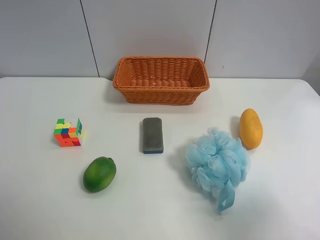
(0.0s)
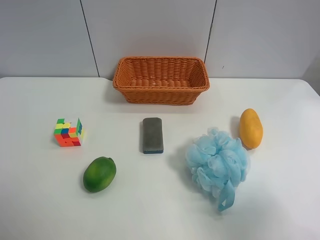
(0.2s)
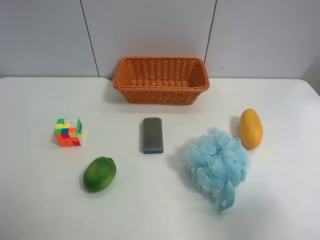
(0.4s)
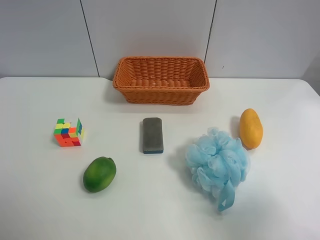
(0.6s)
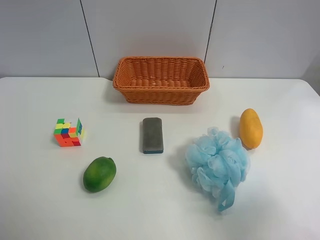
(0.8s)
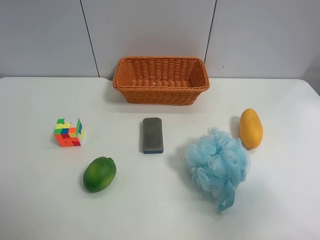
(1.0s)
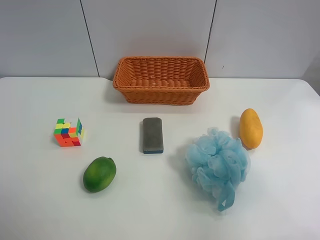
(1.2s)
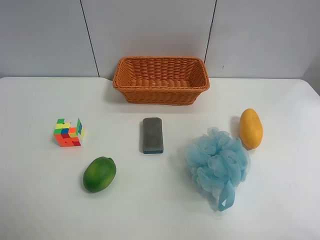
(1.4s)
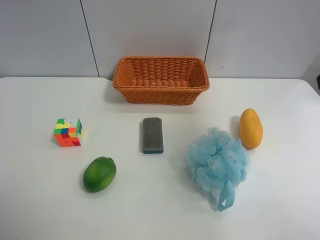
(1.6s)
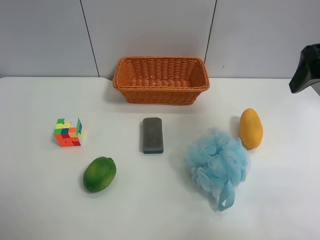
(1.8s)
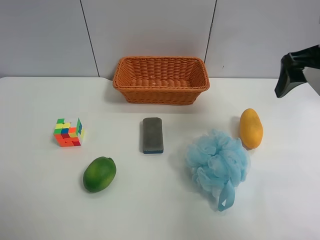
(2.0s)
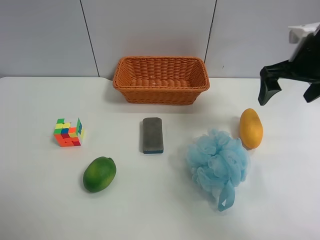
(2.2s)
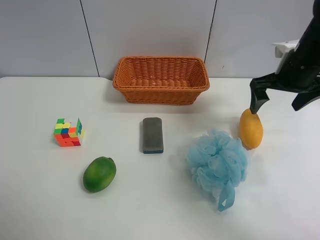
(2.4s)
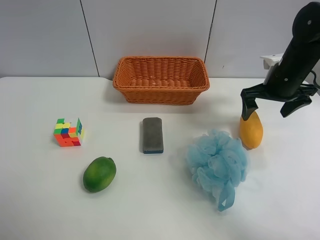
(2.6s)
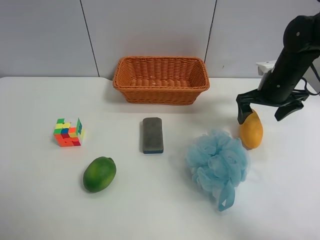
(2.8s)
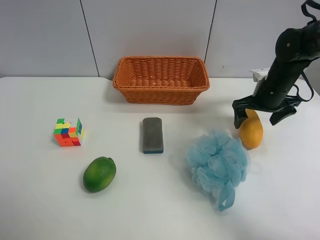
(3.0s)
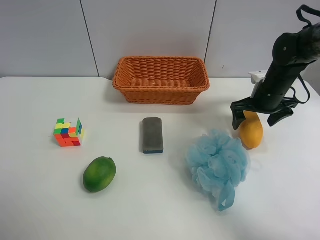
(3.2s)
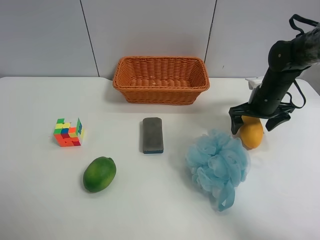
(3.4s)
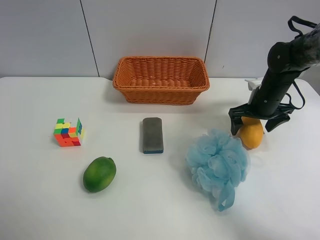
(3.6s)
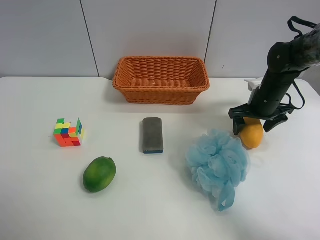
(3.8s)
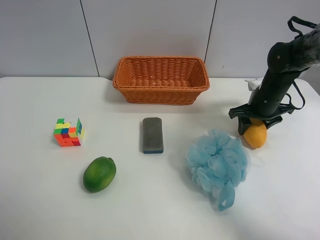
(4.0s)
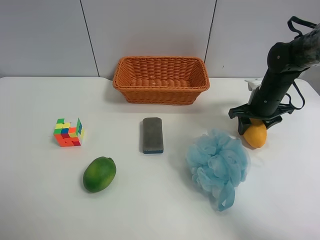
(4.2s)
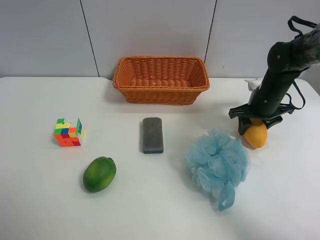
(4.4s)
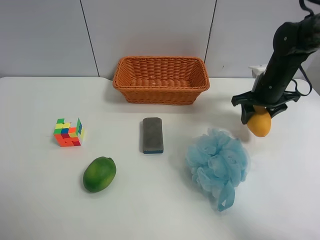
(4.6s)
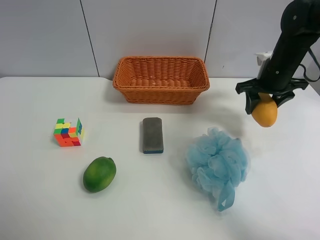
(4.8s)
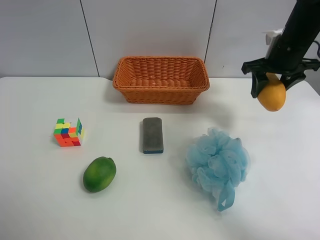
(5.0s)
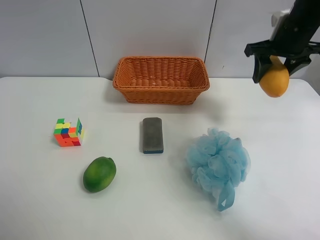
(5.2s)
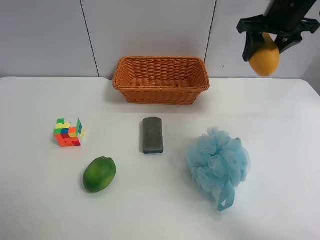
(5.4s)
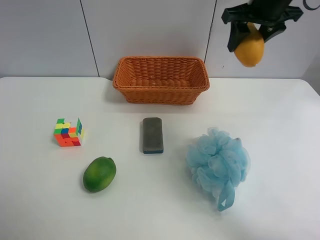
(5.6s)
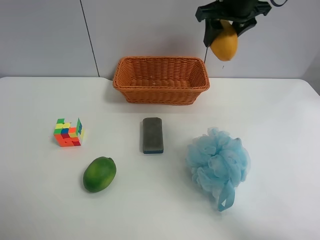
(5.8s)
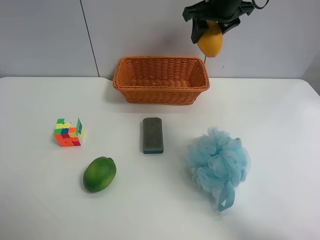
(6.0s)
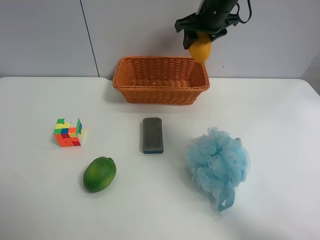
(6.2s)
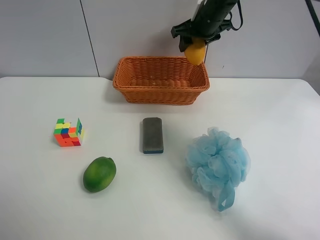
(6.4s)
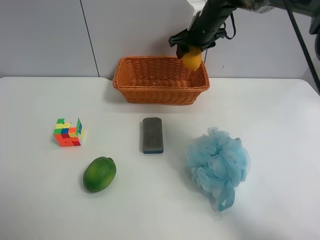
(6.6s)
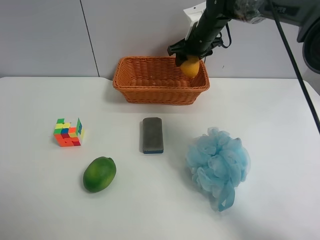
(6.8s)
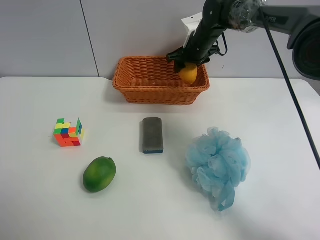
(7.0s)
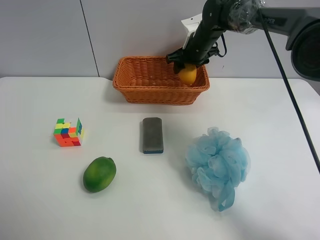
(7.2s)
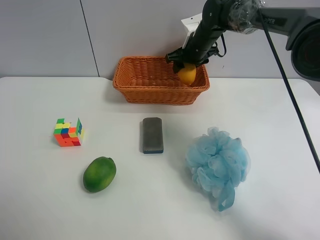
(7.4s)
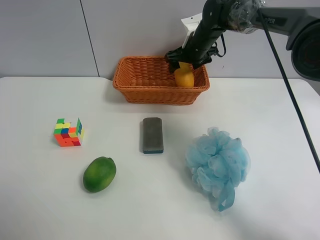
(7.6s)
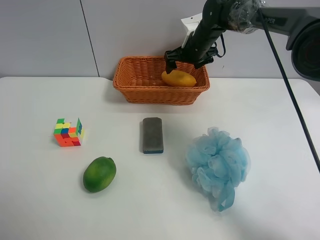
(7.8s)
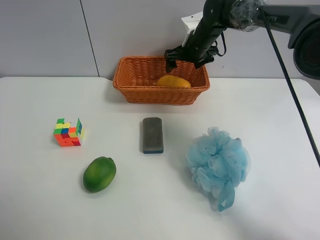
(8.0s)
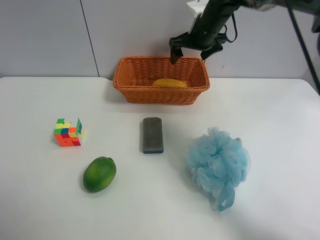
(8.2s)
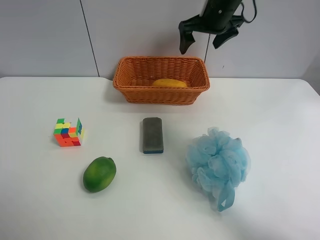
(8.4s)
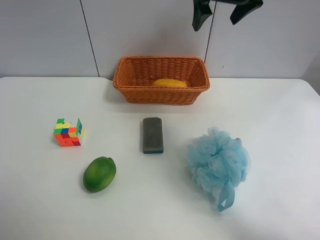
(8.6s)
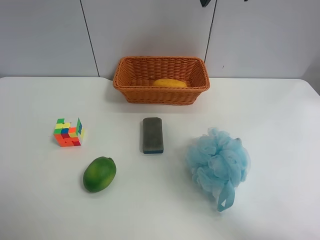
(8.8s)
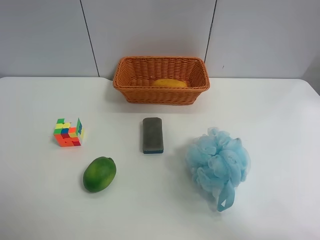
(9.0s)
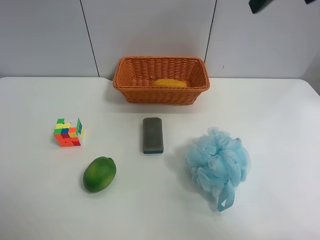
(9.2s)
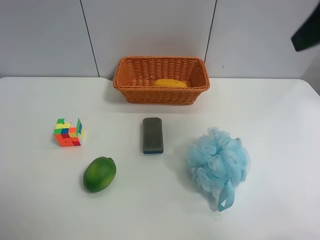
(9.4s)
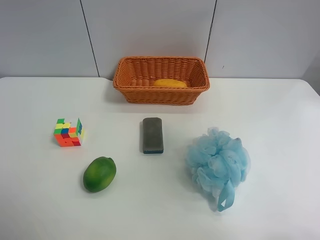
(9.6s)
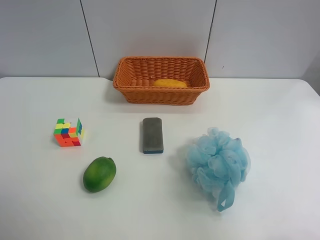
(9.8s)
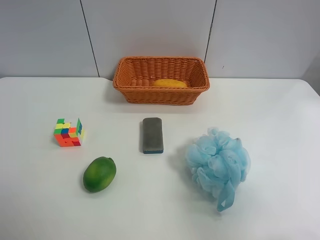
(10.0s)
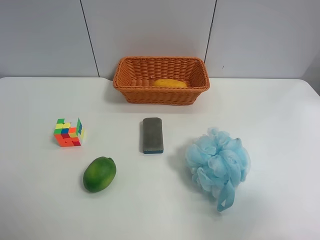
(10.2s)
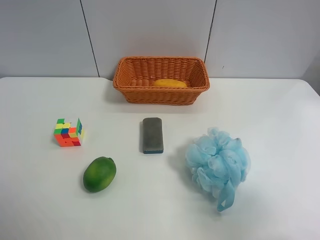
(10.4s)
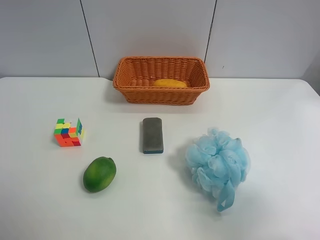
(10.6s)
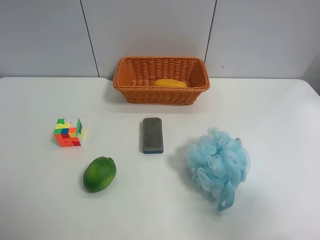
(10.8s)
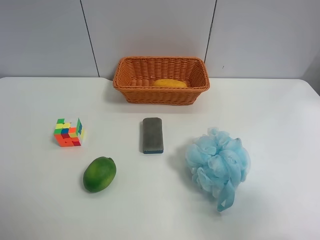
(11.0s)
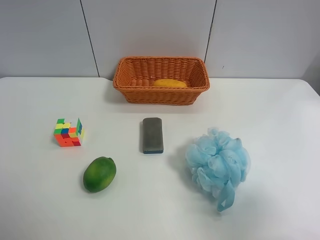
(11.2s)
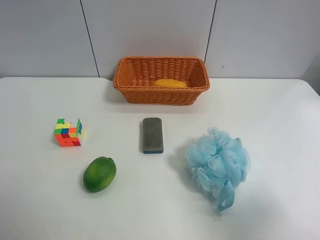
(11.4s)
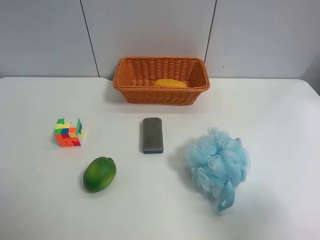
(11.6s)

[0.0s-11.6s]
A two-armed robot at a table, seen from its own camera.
Task of the whole recording: Randomly grab green lemon or mangoes from the table and put them in a basket.
Step, 0.0s to 4.4s: Grasp the mango with the right gripper.
Step, 4.6s to 8.4s: Place the mango into the basket with the right gripper.
0.0s to 1.4s: The right gripper is displaced forward and upward by about 15 cm.
1.4s to 2.8s: The right gripper is displaced forward and downward by some 30 cm.
2.8s to 4.4s: The right gripper closes.
4.4s to 5.8s: The right gripper shifts some 25 cm upward and to the left.
5.8s to 7.2s: The right gripper is displaced downward and forward by some 15 cm.
7.2s to 8.8s: The right gripper shifts roughly 25 cm upward and backward, and opens up.
8.8s to 10.2s: The right gripper goes approximately 40 cm backward.
